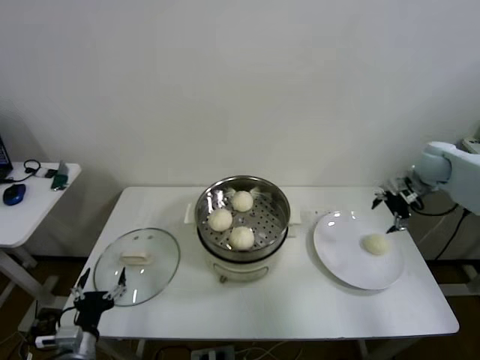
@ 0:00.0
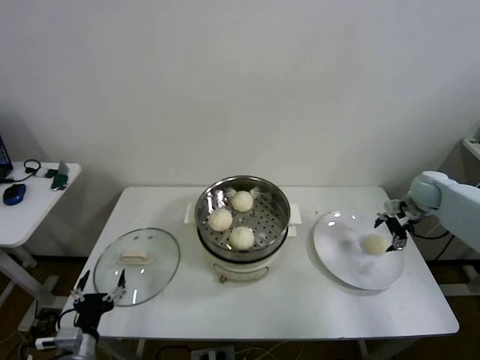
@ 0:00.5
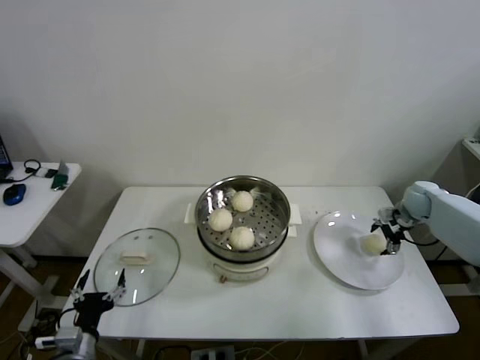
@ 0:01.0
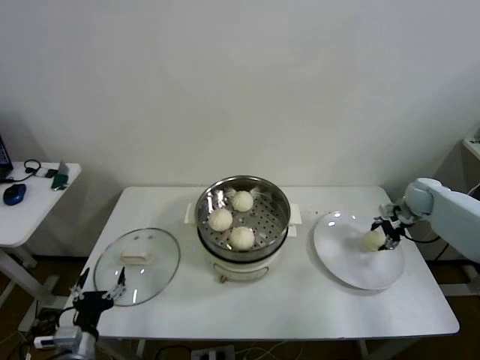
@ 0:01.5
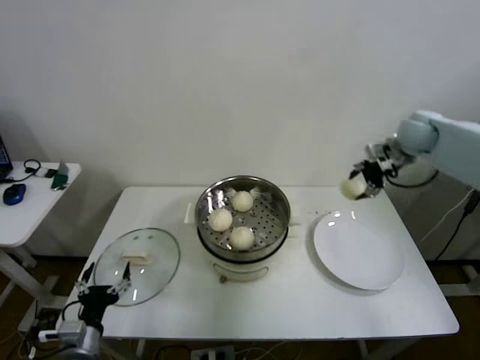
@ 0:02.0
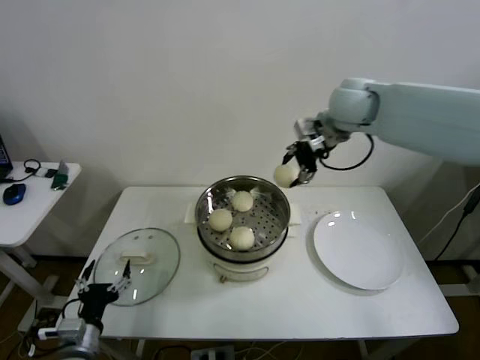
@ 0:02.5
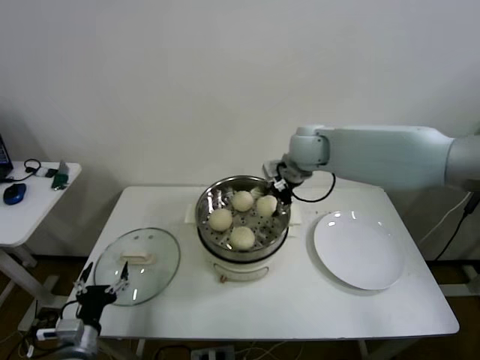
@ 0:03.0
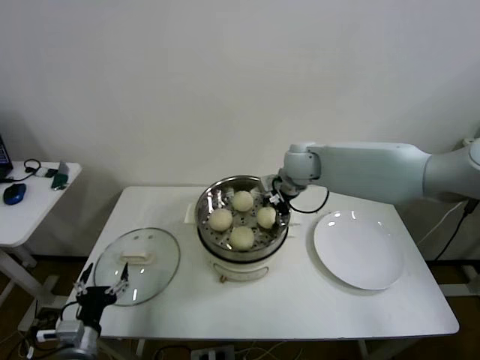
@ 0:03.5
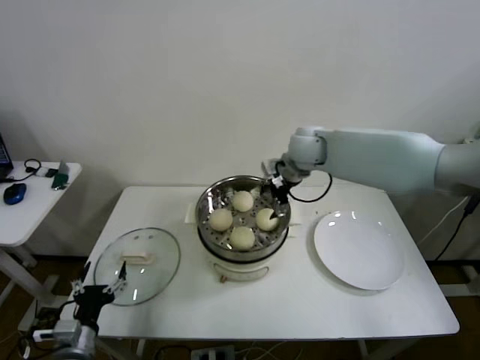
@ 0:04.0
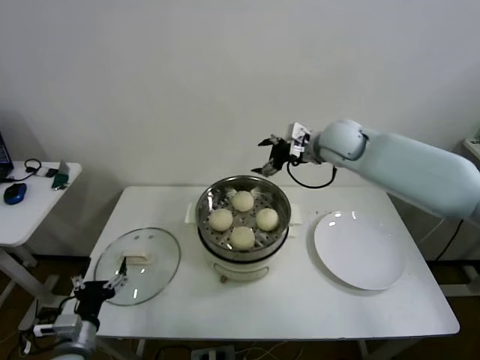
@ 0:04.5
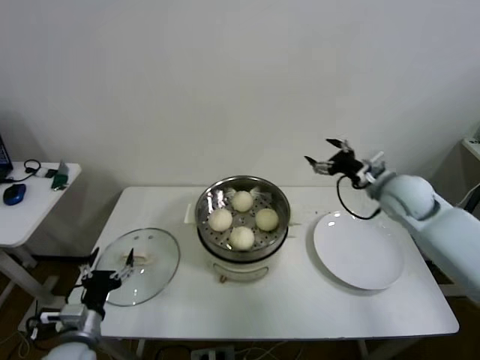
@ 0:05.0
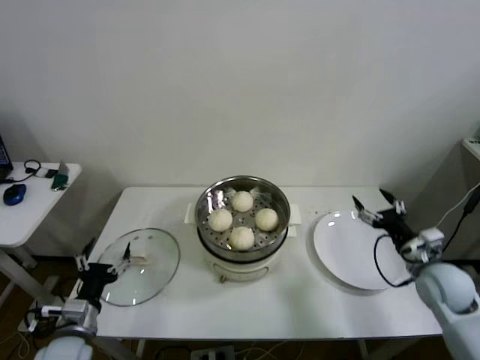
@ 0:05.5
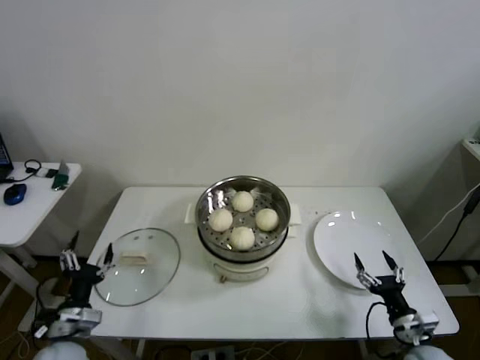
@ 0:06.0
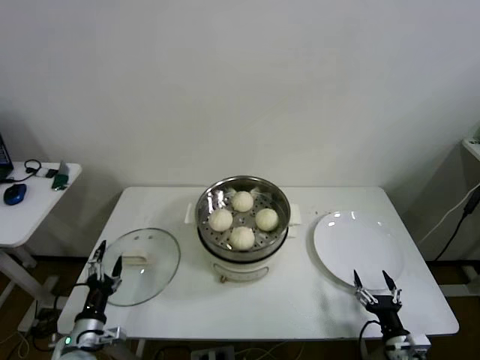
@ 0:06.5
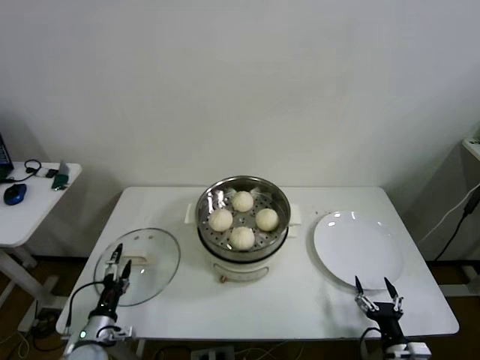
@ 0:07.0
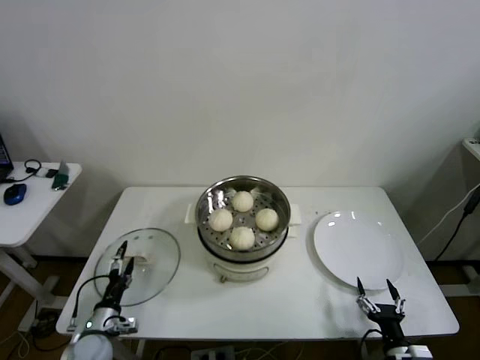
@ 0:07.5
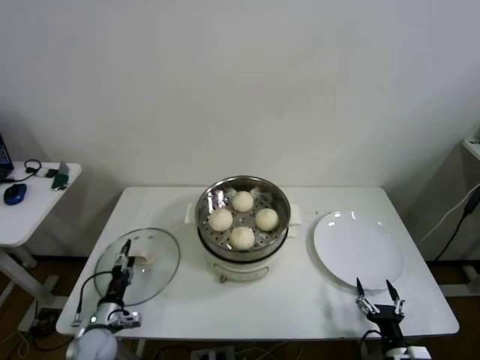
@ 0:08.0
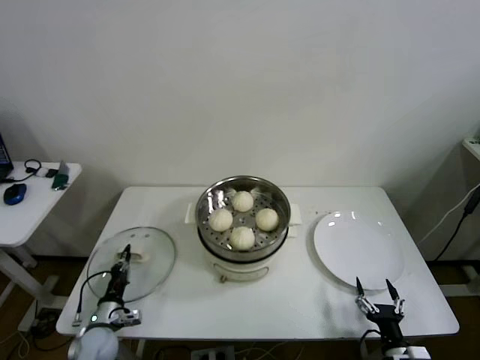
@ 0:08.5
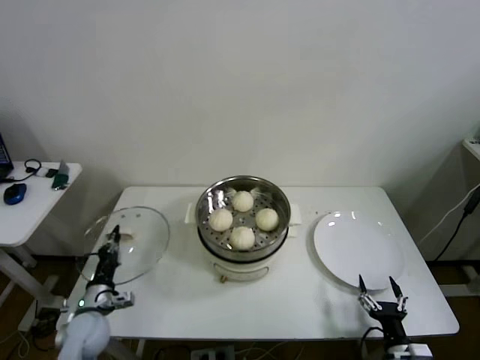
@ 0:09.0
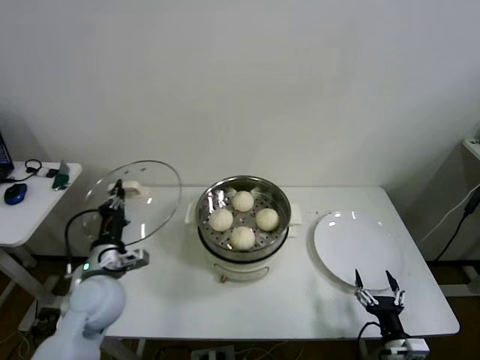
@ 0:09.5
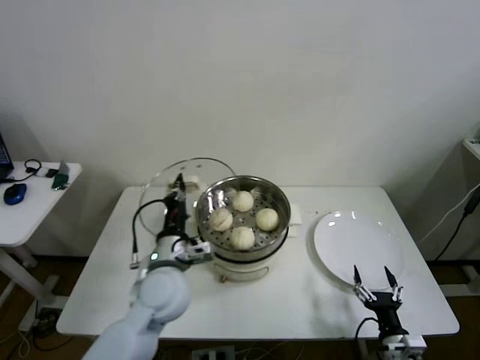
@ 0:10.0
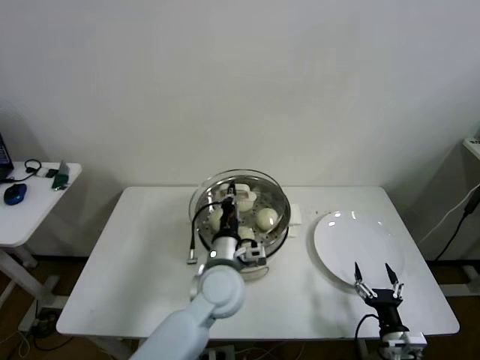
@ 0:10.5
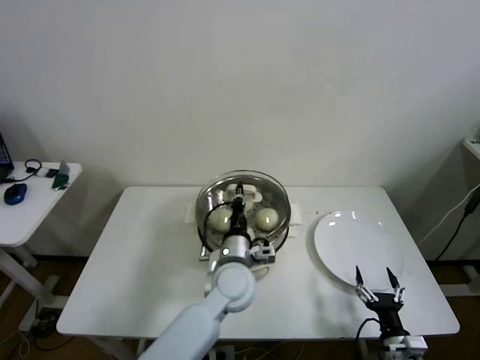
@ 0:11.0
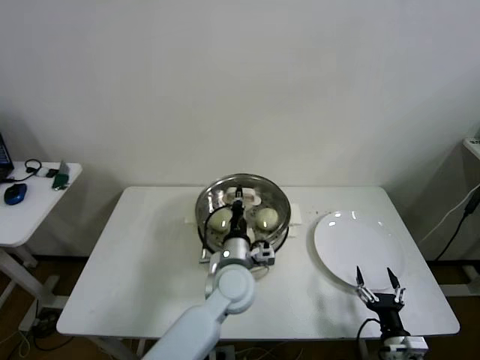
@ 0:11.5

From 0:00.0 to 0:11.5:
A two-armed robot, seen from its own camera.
Step, from 0:01.5 to 0:03.5: Place the baozi on the steamer with right gripper.
Step, from 0:04.0 to 0:08.5: Grasp the pot lid with left gripper.
From 0:00.0 to 0:02.0: The right gripper shifts about 15 cm upward and to the left, and closes.
From 0:02.0 to 0:04.0: The right gripper heads to the left, covering about 25 cm, and opens up.
From 0:04.0 to 0:06.0: The right gripper heads backward, downward and to the right, covering about 50 cm.
From 0:06.0 to 0:07.5: The right gripper moves backward, approximately 5 cm. The left gripper moves downward, about 10 cm.
From 0:07.5 to 0:09.5: The left gripper is displaced upward by some 20 cm, and closes up.
From 0:09.5 to 0:11.5: The left gripper goes about 25 cm to the right.

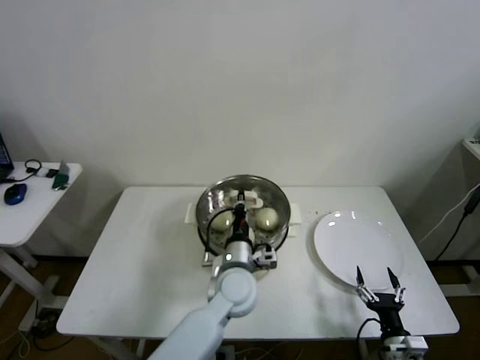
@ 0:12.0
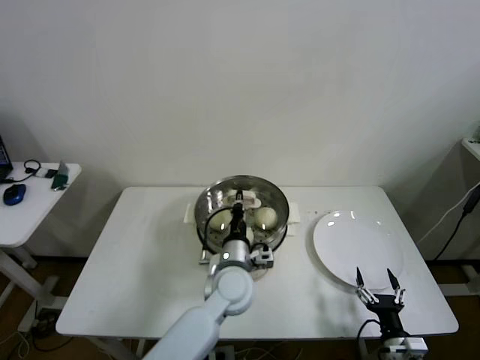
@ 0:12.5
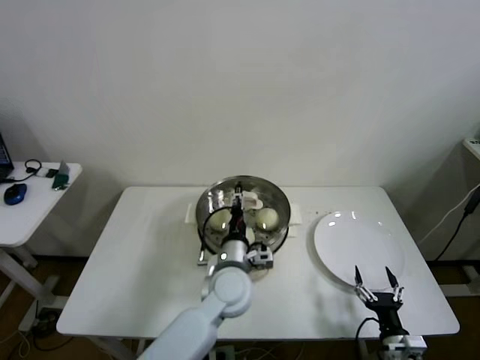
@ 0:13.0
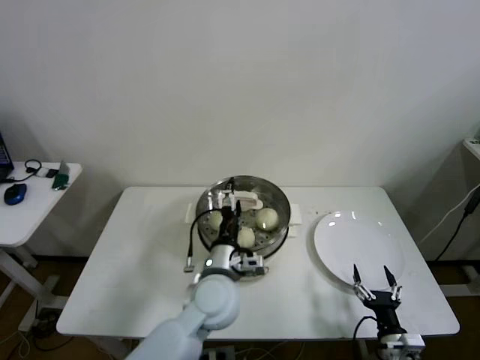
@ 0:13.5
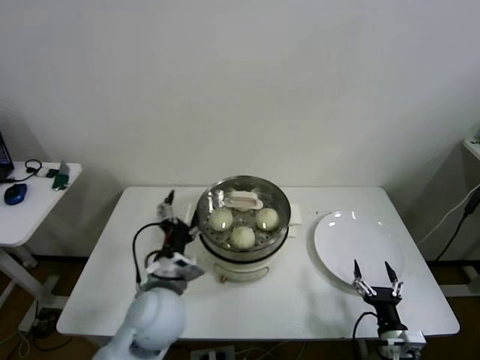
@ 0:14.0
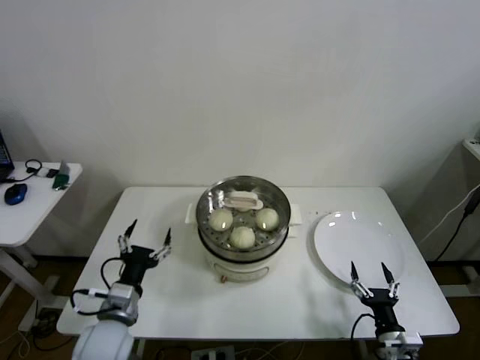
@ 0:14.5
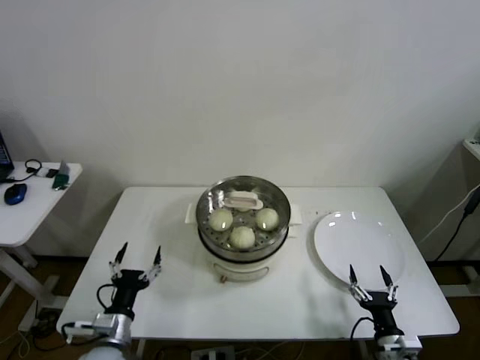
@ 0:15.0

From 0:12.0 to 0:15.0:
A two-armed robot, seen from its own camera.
From 0:12.0 to 0:13.5: The left gripper shifts by some 5 cm, and opens its fingers.
From 0:13.5 to 0:15.0: The left gripper heads to the left, downward and backward, covering some 30 cm.

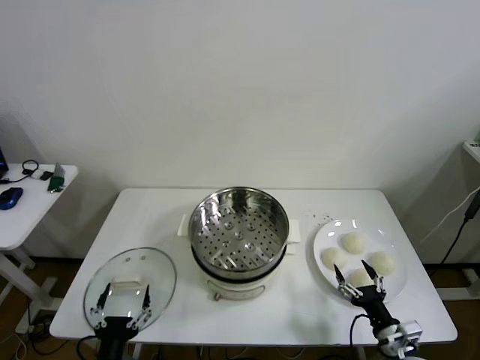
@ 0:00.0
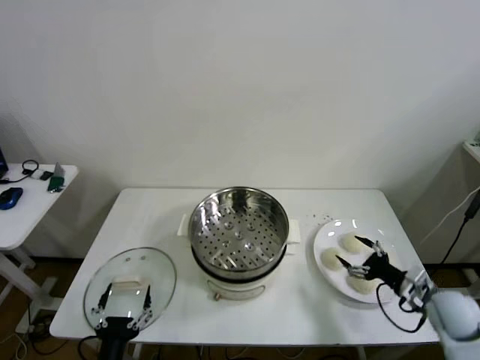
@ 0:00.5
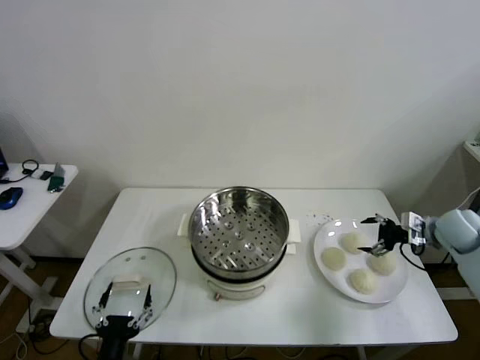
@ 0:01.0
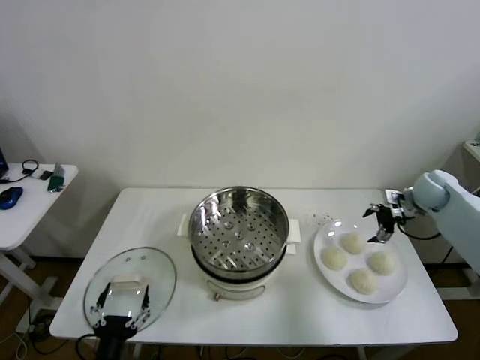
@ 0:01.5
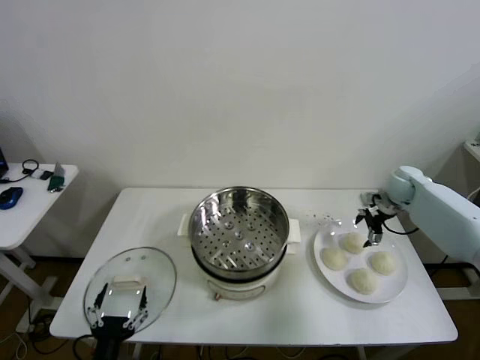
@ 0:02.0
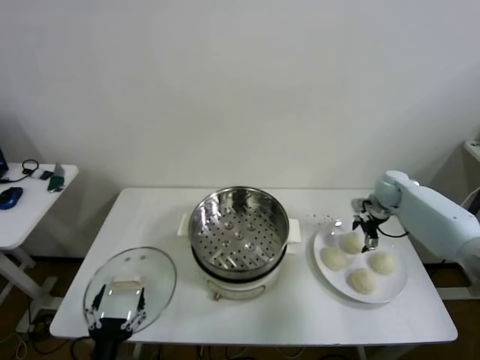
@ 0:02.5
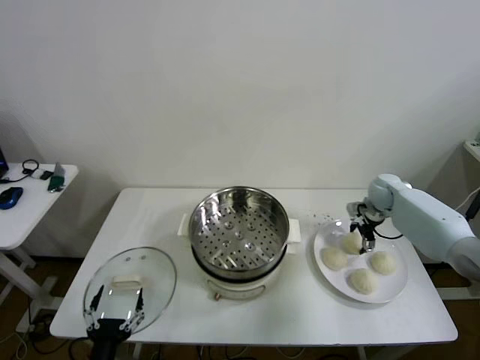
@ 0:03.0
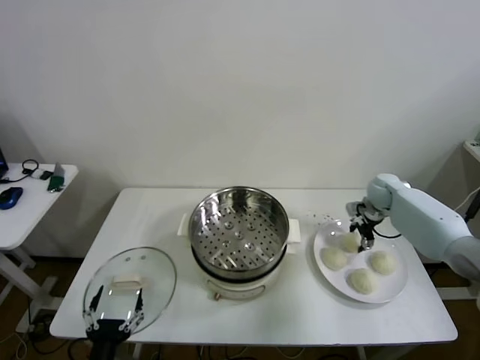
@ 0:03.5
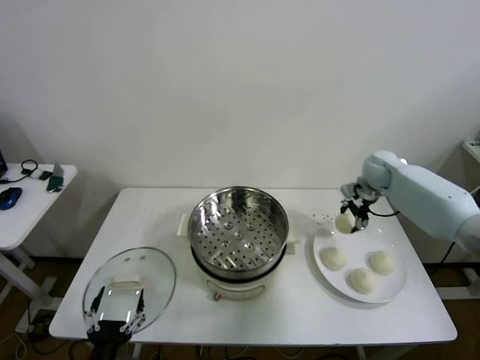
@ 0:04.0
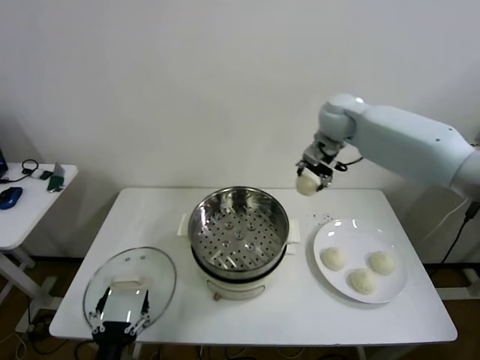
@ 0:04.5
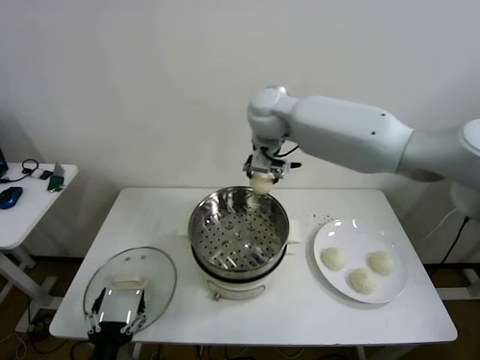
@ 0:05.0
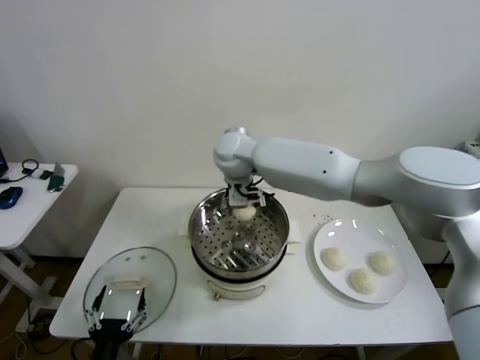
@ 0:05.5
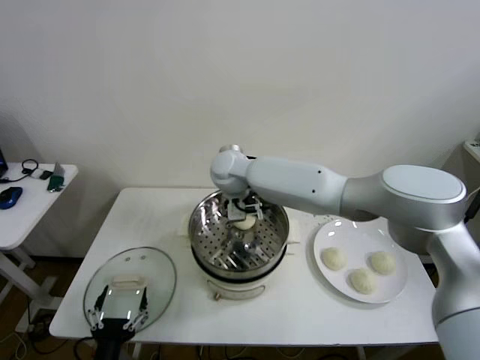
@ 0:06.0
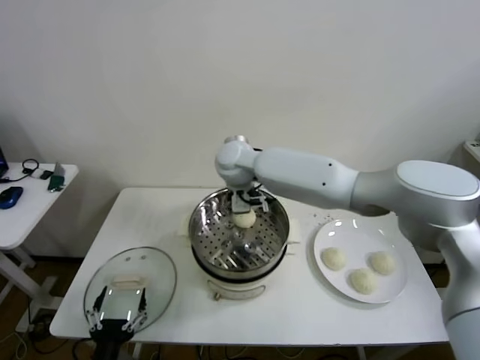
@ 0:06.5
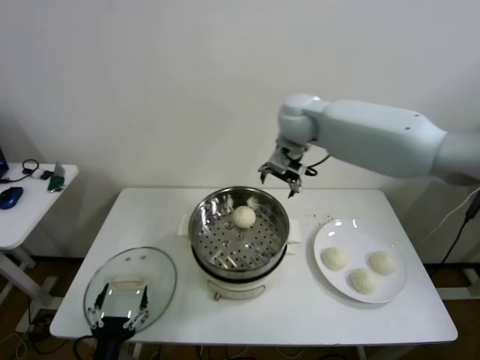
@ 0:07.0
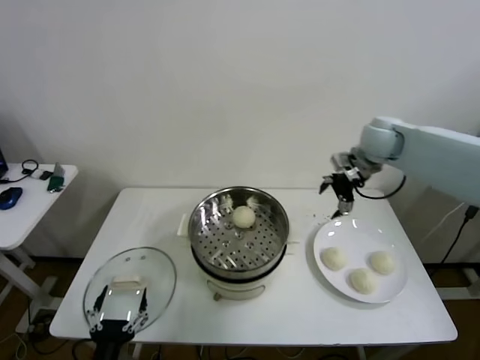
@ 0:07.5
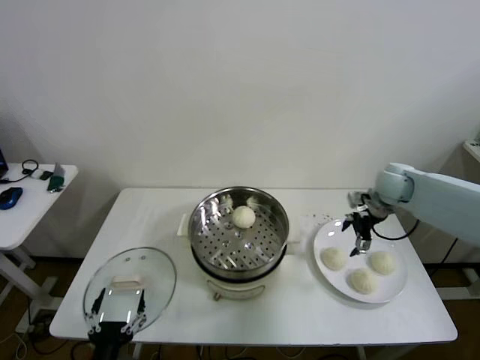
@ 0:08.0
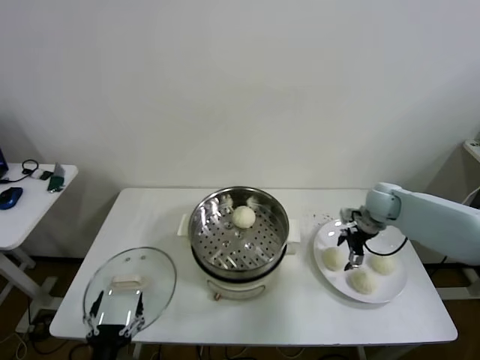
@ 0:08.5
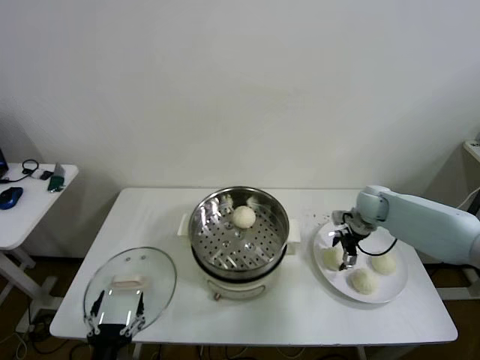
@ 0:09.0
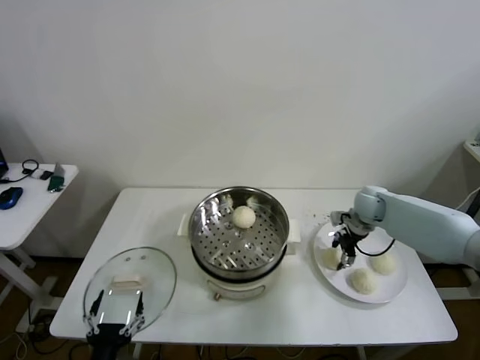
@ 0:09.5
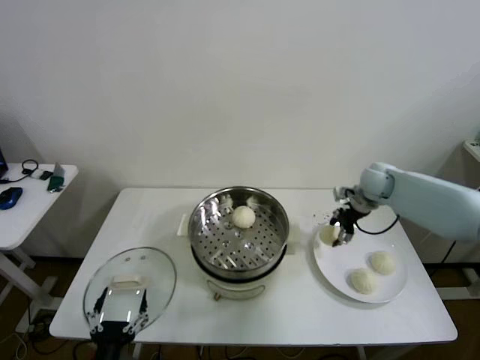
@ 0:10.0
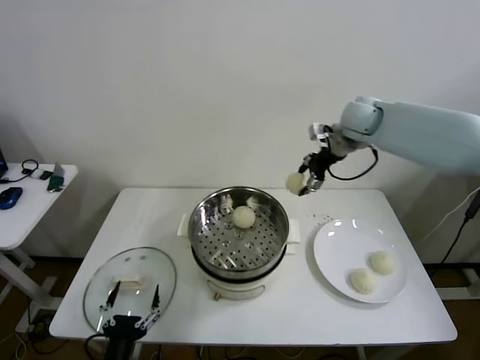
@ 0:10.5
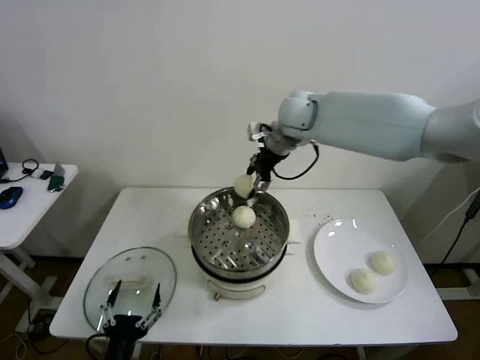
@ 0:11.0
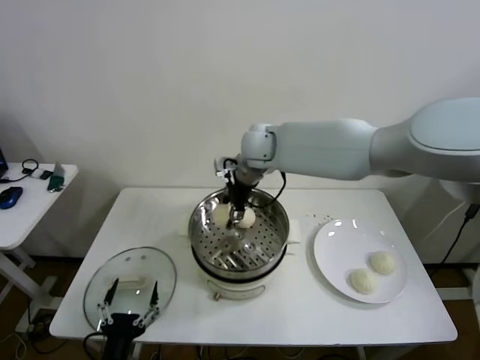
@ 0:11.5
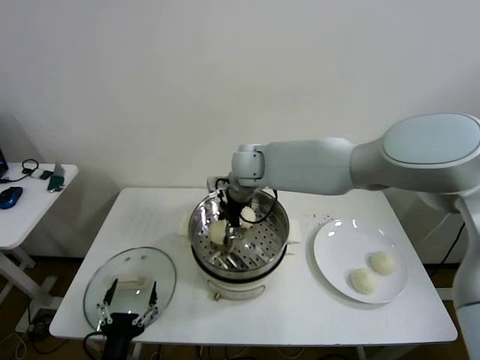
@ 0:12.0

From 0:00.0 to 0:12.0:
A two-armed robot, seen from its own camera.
Step, from 0:00.0 to 0:03.0: Grasp the baozi in the plate with right gripper.
Step, from 0:04.0 to 0:06.0: Place the baozi on the steamer with right gripper.
Step, from 0:06.5 to 0:09.0: Grasp the baozi in the plate with right gripper.
From 0:02.0 to 0:04.0: The right gripper heads to the left and upward, covering about 10 cm, and closes.
From 0:04.0 to 0:06.0: The right gripper heads to the left, covering about 35 cm, and opens up.
From 0:06.0 to 0:08.0: The right gripper travels to the right by roughly 40 cm.
From 0:08.0 to 0:10.0: The right gripper moves approximately 5 cm downward and comes back, and closes its fingers.
From 0:10.0 to 0:12.0: The right gripper heads to the left, covering roughly 35 cm.
